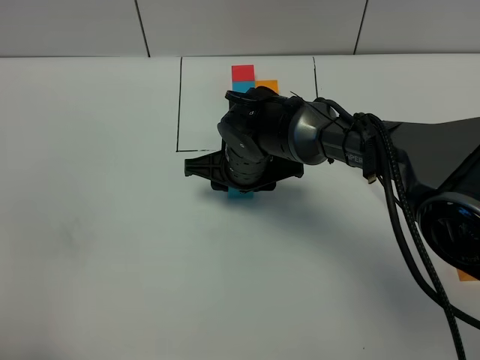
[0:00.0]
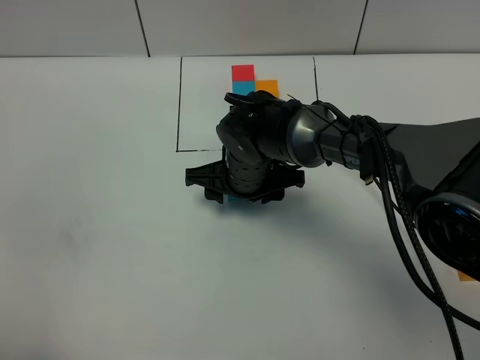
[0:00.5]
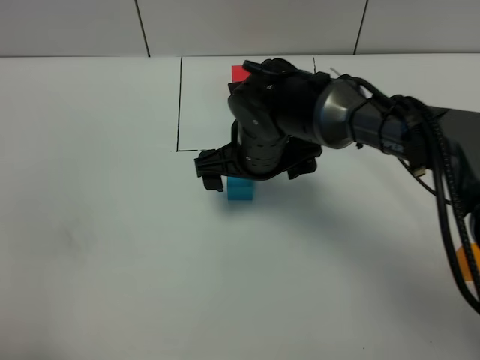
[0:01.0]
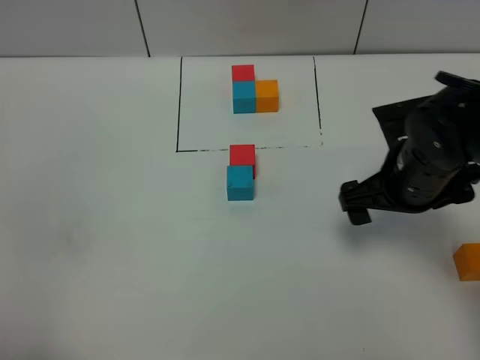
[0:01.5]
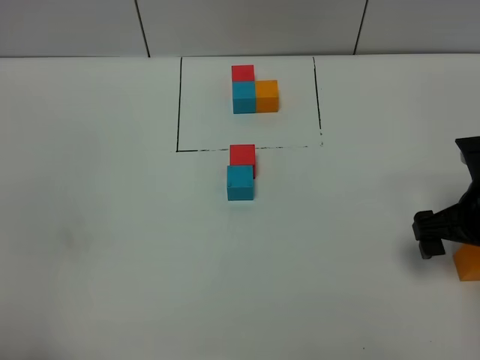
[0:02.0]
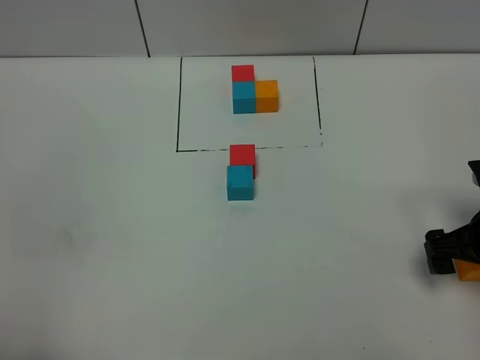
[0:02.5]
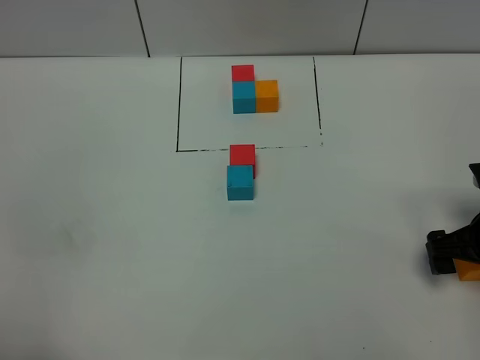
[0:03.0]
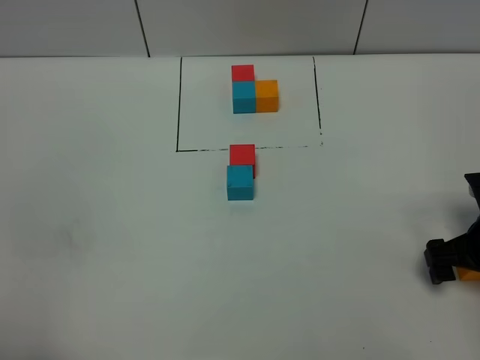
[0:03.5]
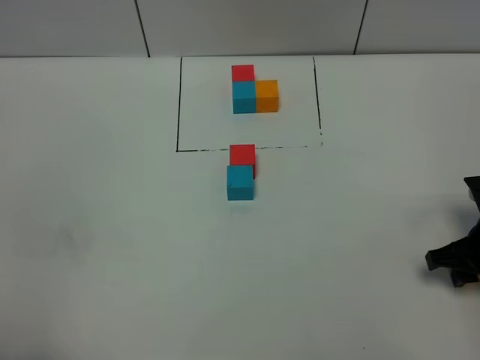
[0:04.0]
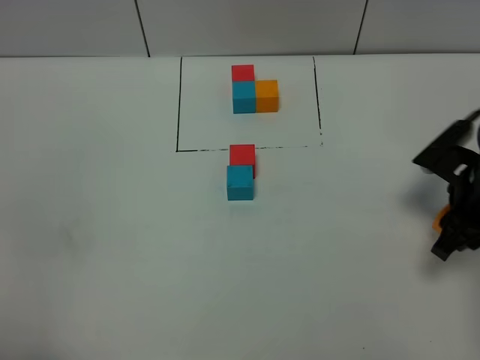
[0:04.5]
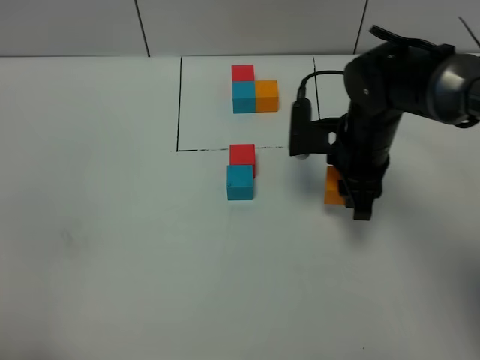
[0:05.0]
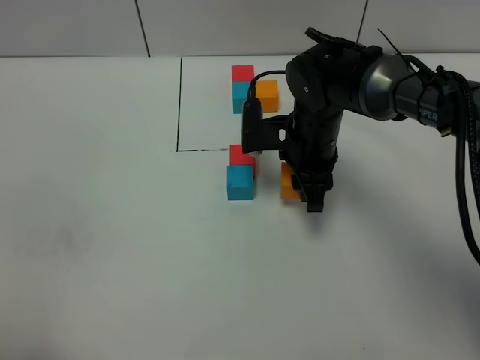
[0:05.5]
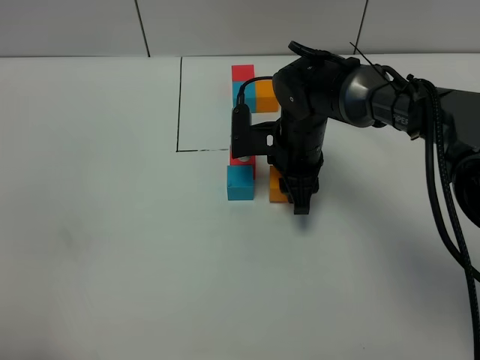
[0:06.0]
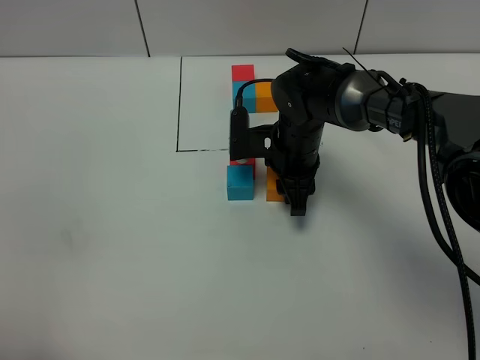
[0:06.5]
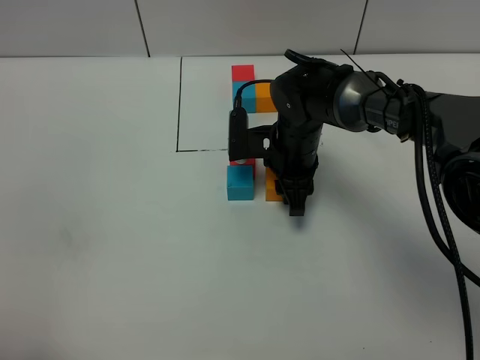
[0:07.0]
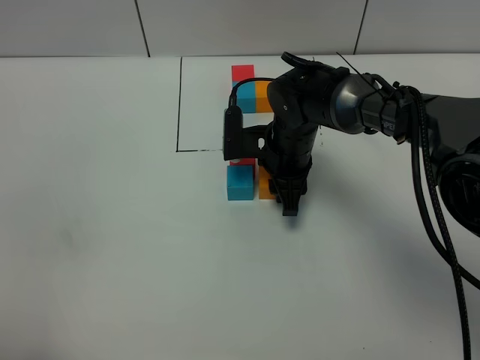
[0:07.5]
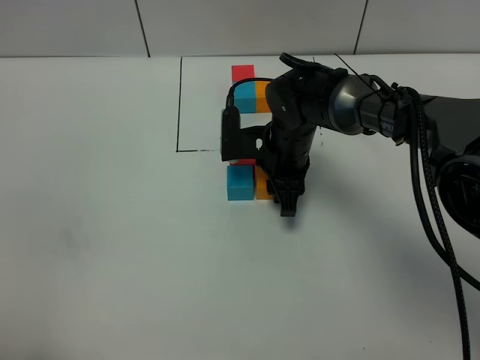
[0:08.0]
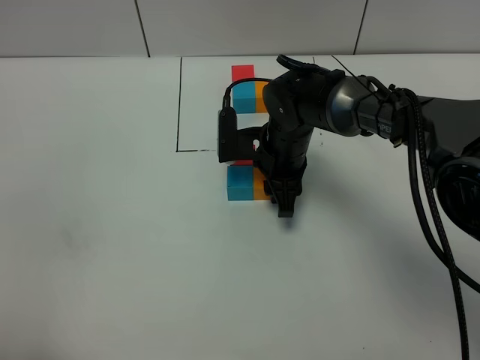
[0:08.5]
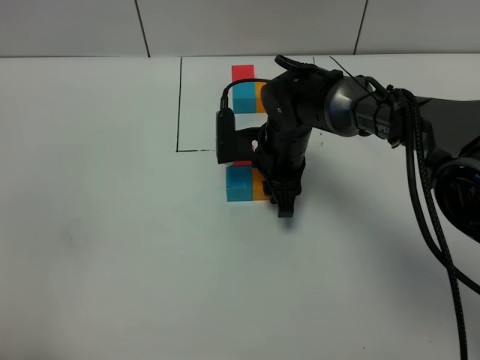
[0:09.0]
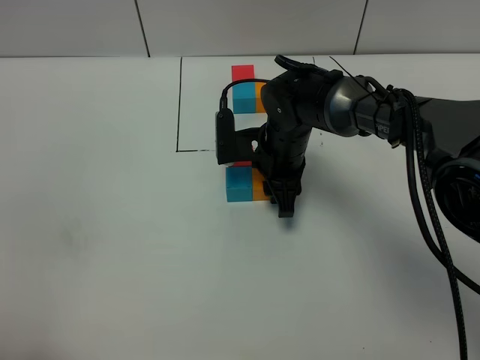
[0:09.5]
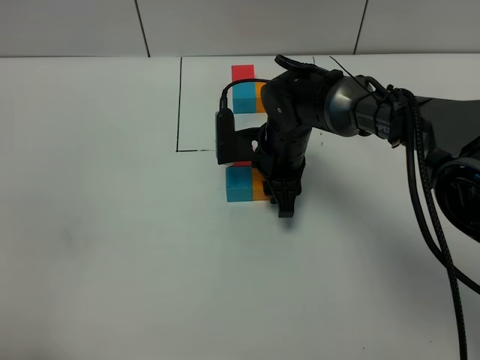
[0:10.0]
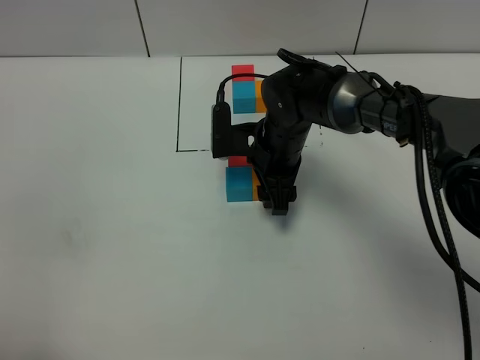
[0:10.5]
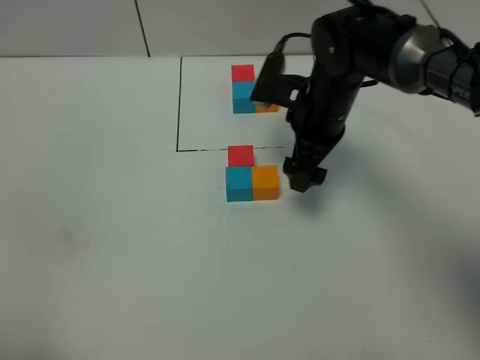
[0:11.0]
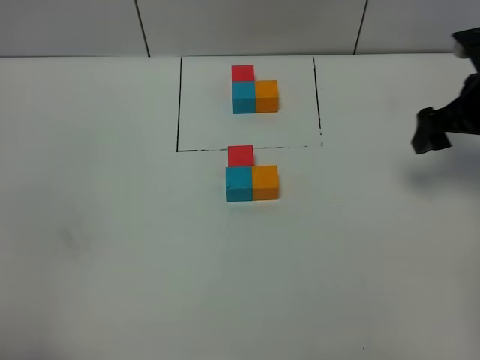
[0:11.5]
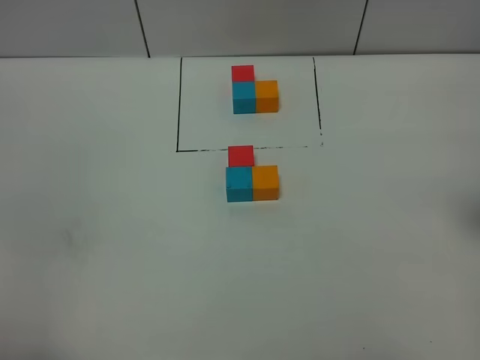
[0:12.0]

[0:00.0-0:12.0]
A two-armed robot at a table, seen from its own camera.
Task of the whole recording: According to the building block template in front, assemble the scattered blocks together.
Step, 0:01.0 to 0:10.0: Put the orange build block on the right of the blue build block.
0:00.0 to 0:02.0: The right gripper goes some 30 cm to the right and backward, and opens up.
0:02.0 to 0:04.0: The right gripper travels downward by roughly 5 cm, and closes.
0:04.0 to 0:06.0: The right gripper shifts about 25 cm to the left and forward.
0:06.0 to 0:08.0: The grippers make only small movements.
0:08.0 to 0:10.0: Neither gripper changes place.
0:10.0 to 0:12.0: The right gripper shifts about 35 cm to the right, upward and backward, and opens.

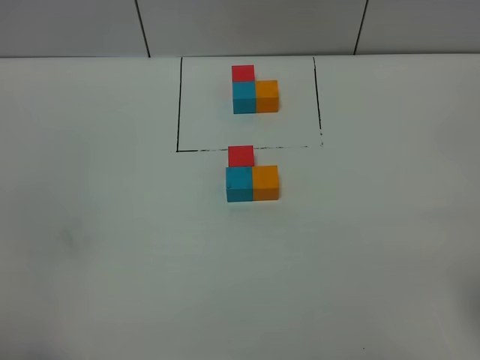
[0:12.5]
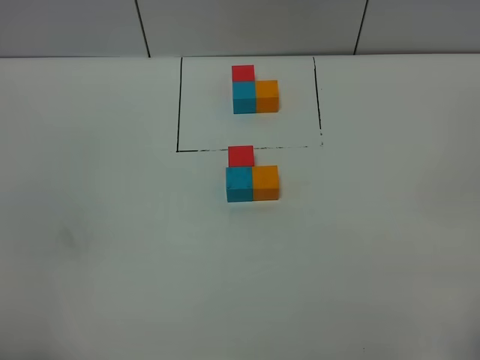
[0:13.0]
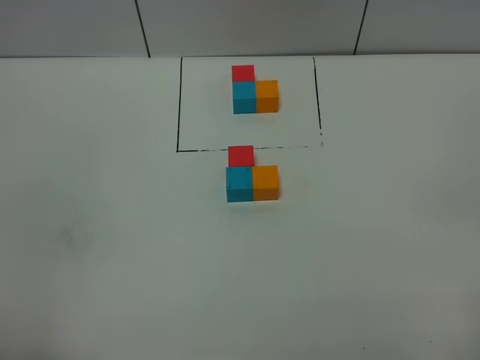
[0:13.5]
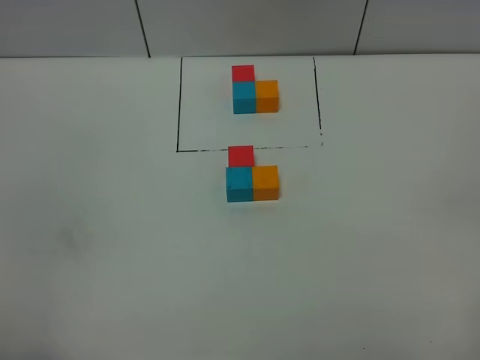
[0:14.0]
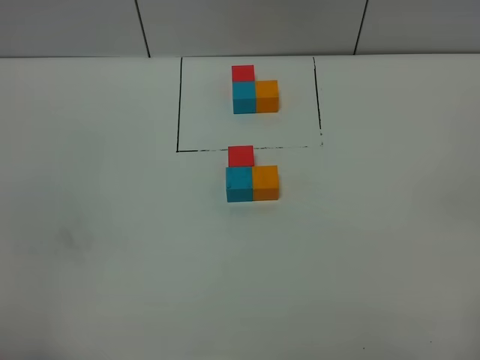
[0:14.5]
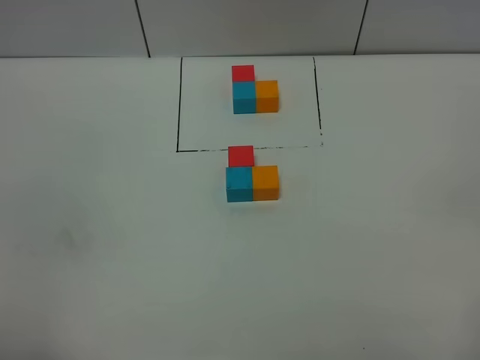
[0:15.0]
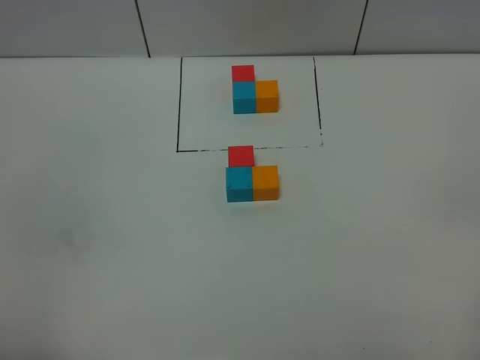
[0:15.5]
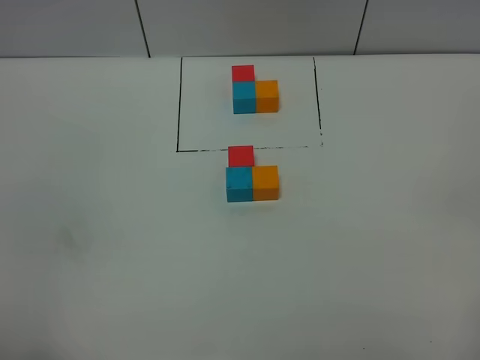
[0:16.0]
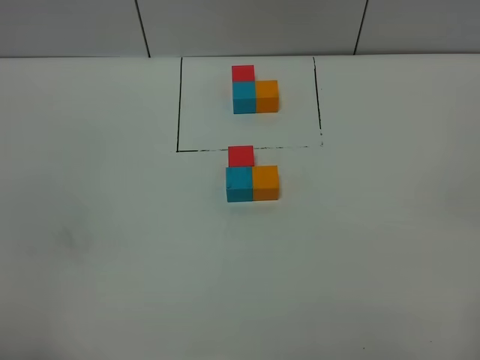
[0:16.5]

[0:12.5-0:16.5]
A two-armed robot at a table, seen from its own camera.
Task of the whole recording: According to the building block template in front, assemble the scattered blocks together.
0:14.5 to 0:16.5: Neither gripper changes place.

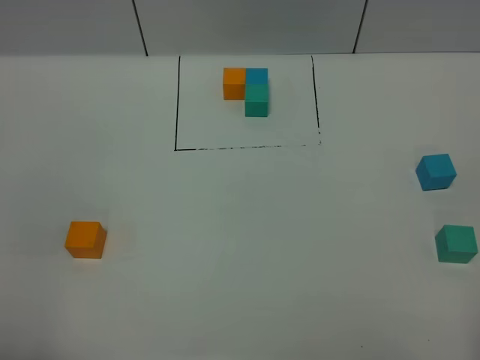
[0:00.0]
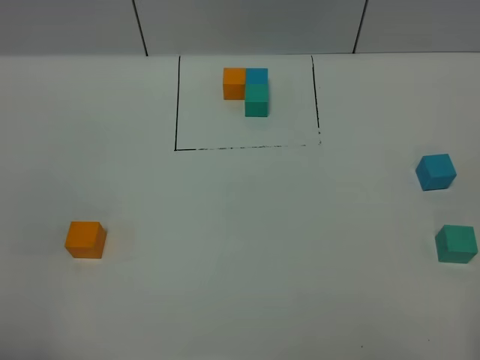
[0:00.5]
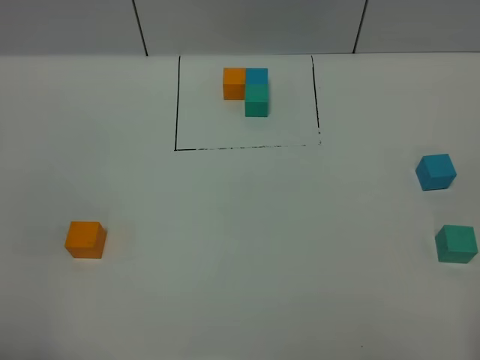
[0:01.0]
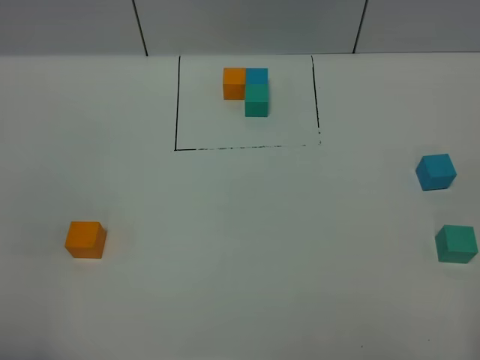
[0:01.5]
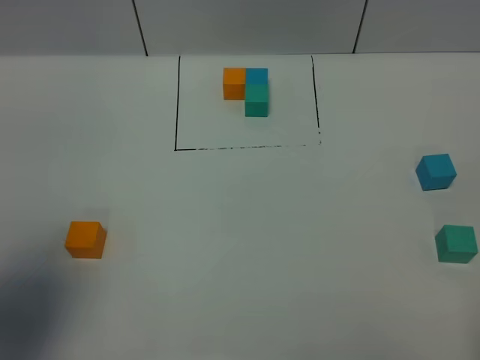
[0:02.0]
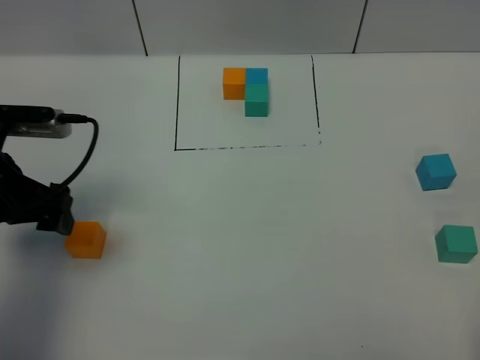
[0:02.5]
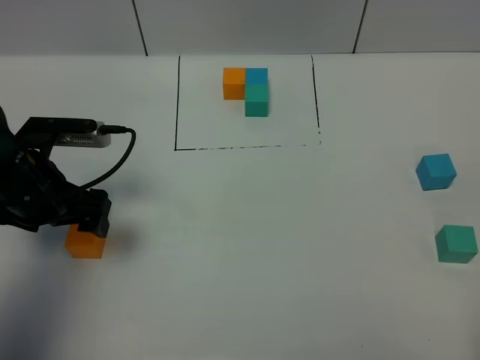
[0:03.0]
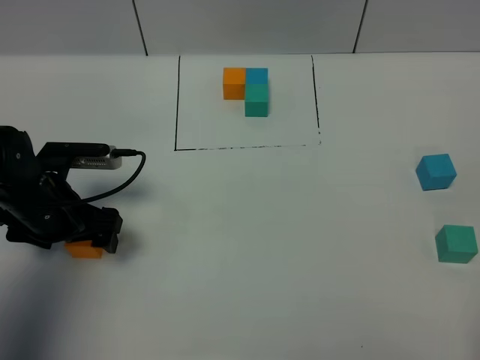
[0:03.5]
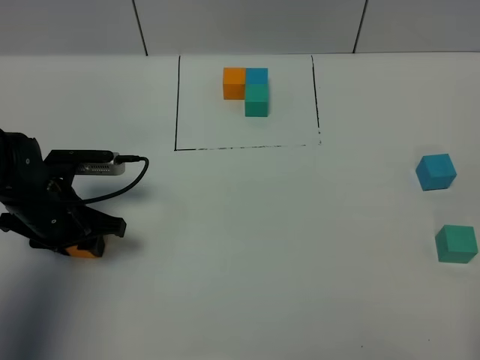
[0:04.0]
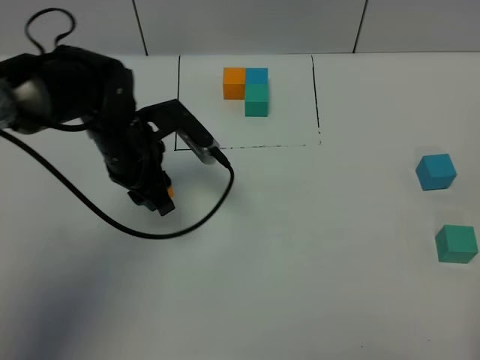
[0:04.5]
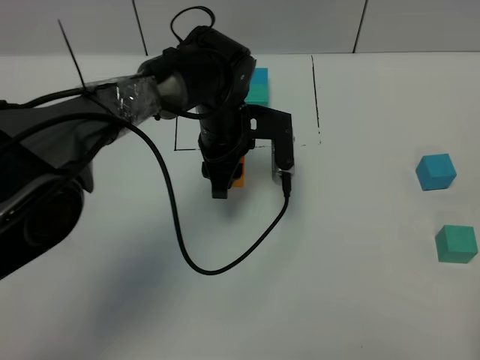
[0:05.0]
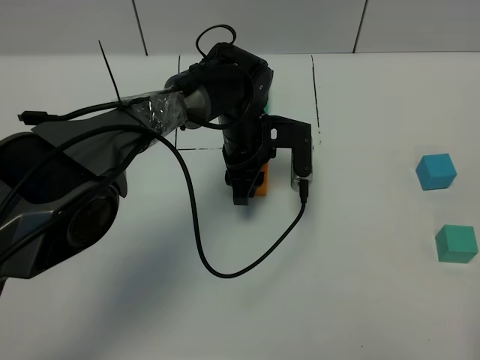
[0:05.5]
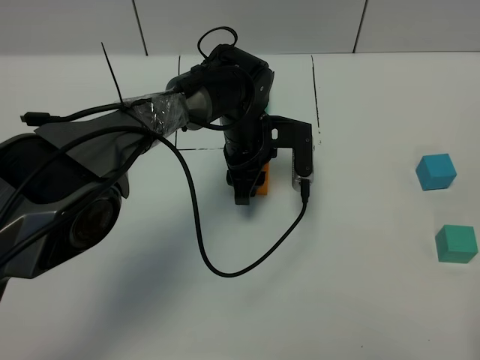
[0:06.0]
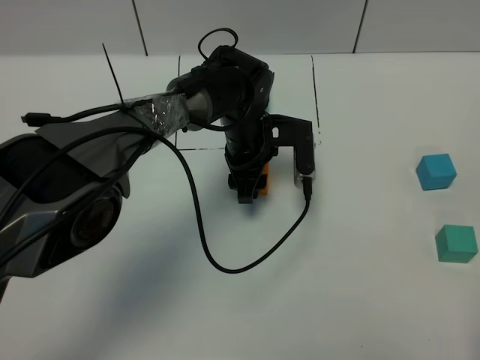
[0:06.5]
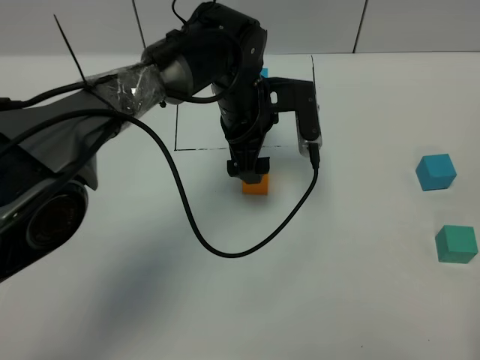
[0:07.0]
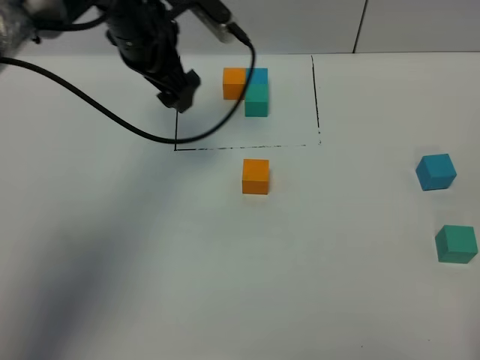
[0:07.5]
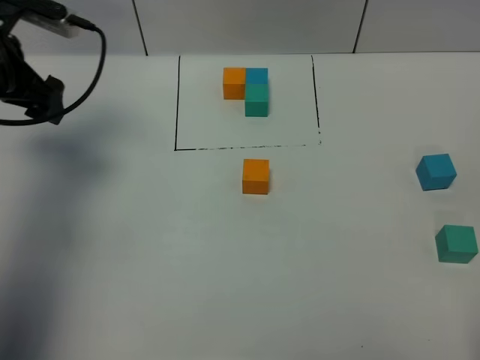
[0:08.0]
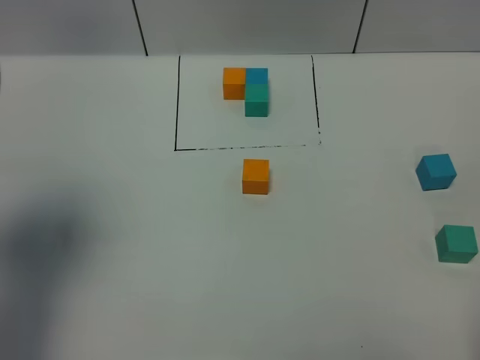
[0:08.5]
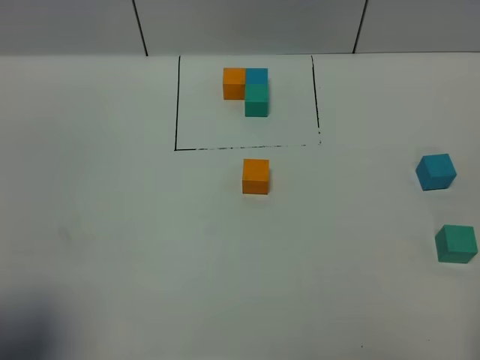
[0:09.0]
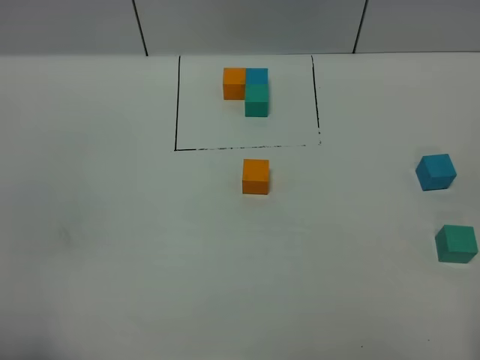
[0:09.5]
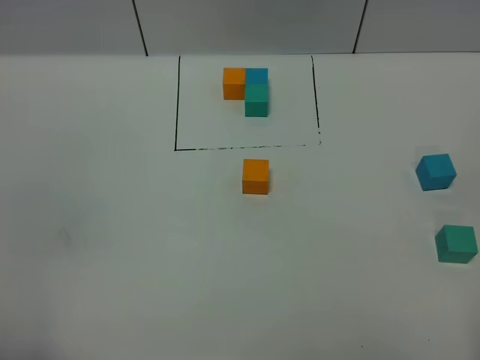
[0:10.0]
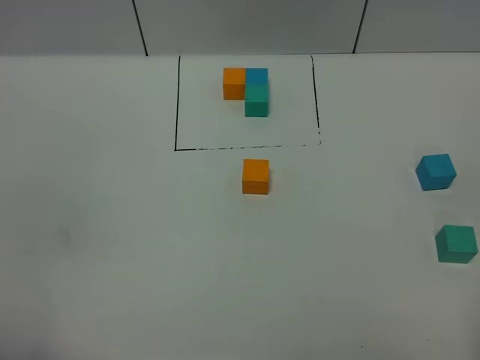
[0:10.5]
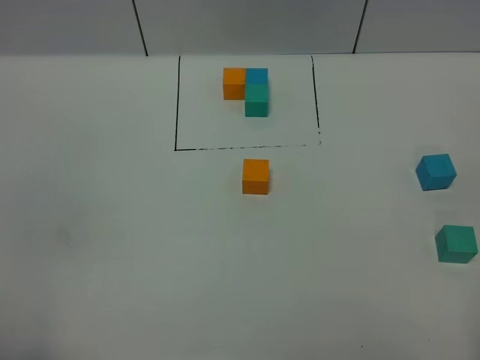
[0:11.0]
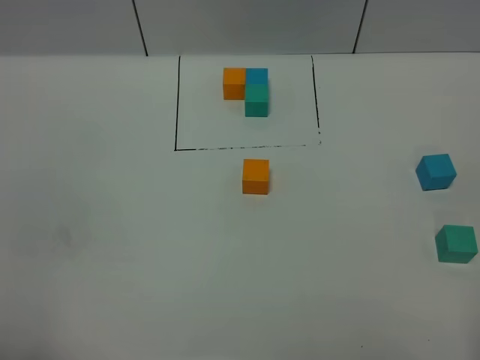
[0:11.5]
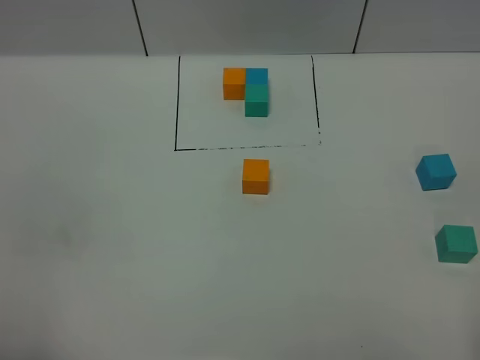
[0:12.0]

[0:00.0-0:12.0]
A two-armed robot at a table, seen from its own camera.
Task of the whole recording: According to the building block template in front, assemble the scattered blocks together.
Step, 0:00.0 to 0:06.5: Put the orange build block in the center of the table.
0:00.0 to 0:02.0: The left gripper heads forward, covering roughly 15 cm.
0:02.0 to 0:04.0: The left gripper is displaced downward and forward by roughly 25 cm, and closes.
0:04.0 to 0:06.0: The left gripper travels to the right and forward by approximately 25 cm.
0:06.0 to 0:08.0: The left gripper heads to the left and upward, covering approximately 35 cm, and opens its fingers.
0:08.0 to 0:10.0: The left gripper goes roughly 40 cm backward.
0:10.0 to 0:12.0: Neither gripper changes place.
